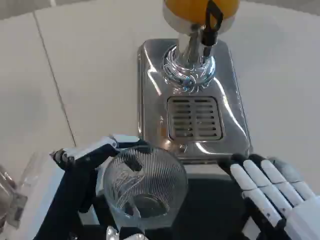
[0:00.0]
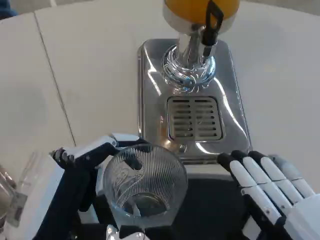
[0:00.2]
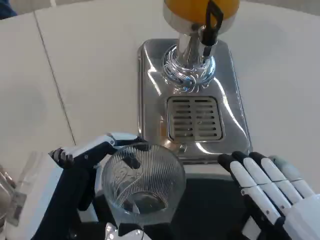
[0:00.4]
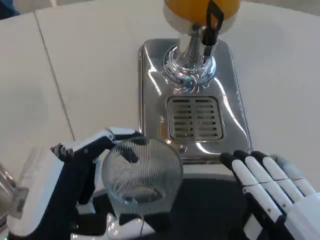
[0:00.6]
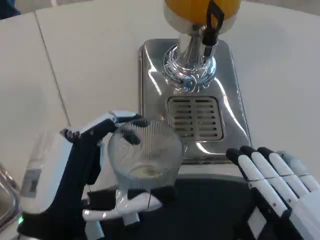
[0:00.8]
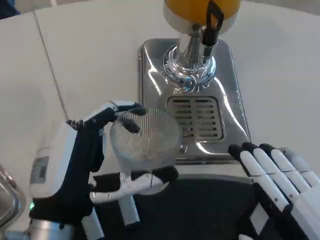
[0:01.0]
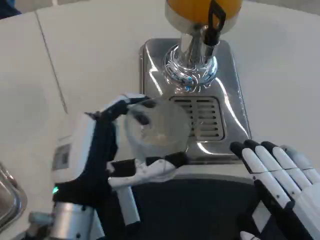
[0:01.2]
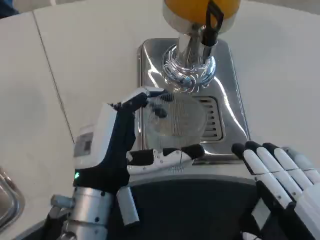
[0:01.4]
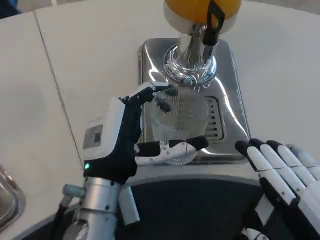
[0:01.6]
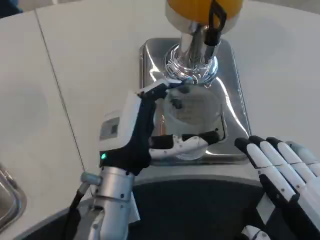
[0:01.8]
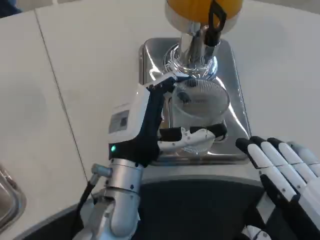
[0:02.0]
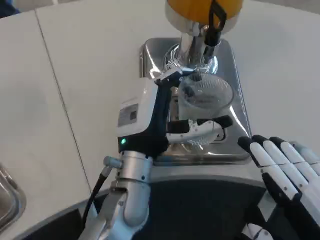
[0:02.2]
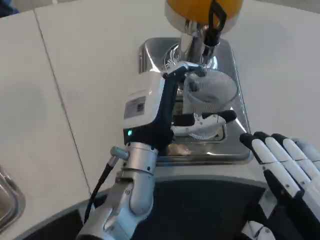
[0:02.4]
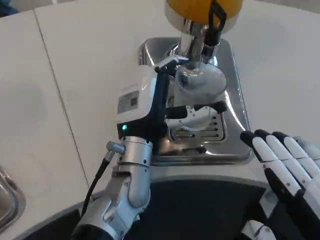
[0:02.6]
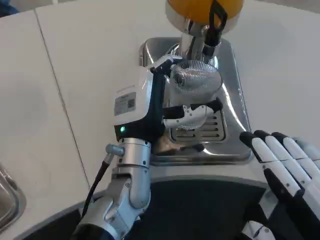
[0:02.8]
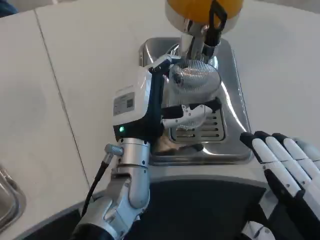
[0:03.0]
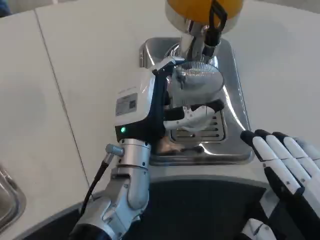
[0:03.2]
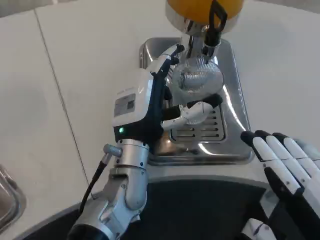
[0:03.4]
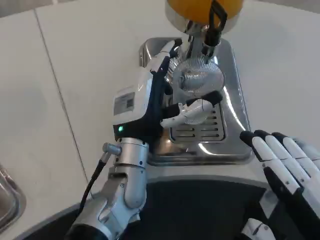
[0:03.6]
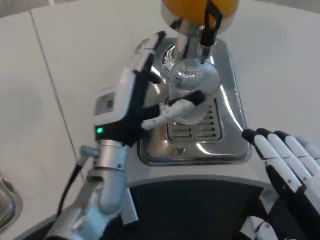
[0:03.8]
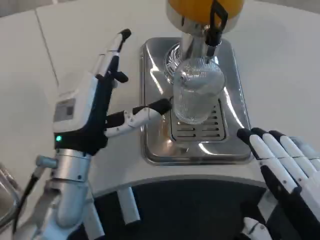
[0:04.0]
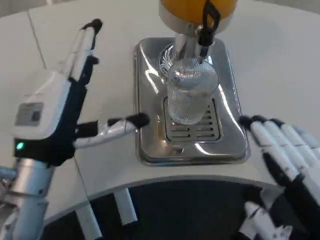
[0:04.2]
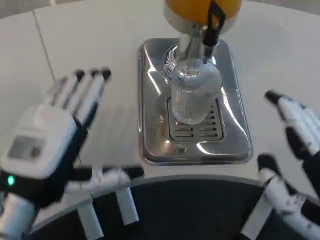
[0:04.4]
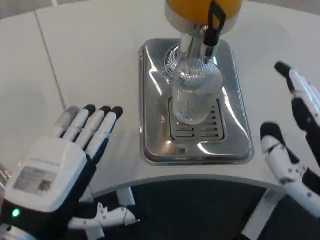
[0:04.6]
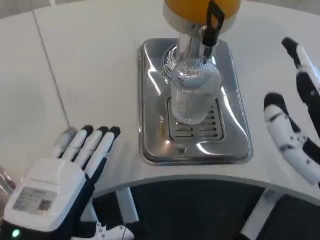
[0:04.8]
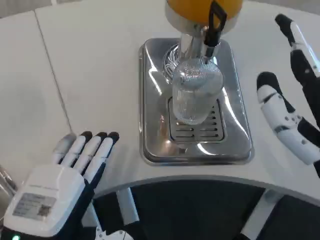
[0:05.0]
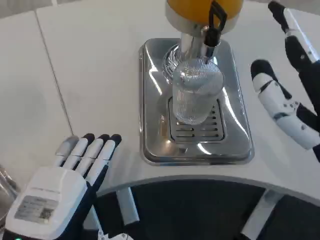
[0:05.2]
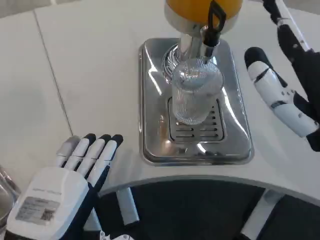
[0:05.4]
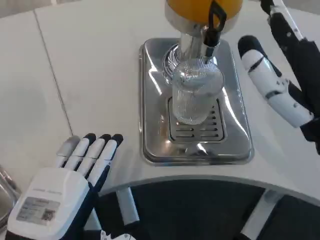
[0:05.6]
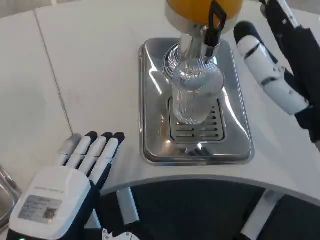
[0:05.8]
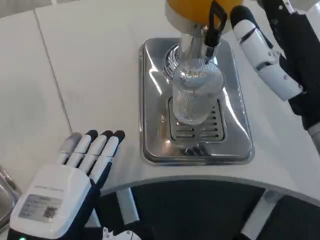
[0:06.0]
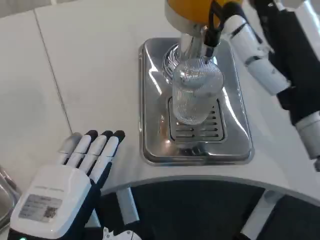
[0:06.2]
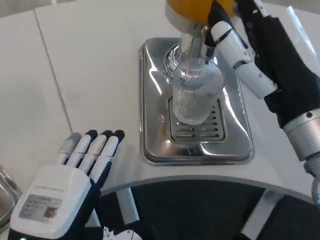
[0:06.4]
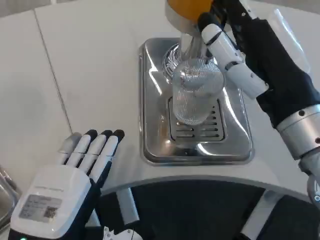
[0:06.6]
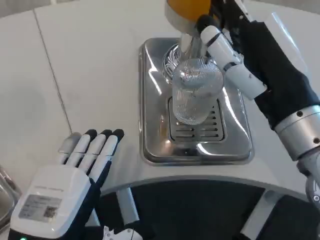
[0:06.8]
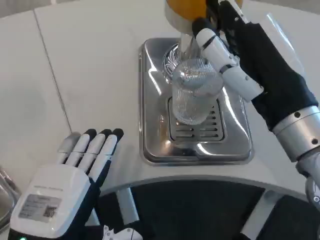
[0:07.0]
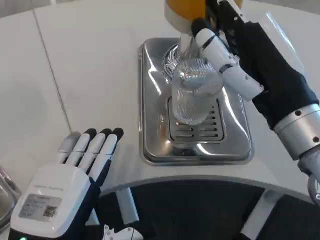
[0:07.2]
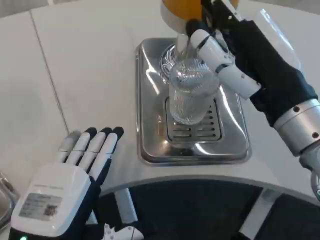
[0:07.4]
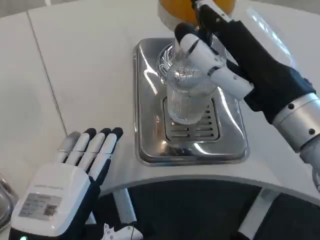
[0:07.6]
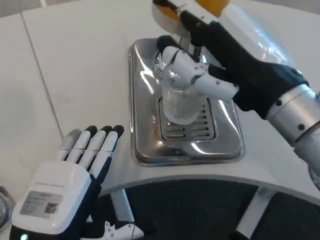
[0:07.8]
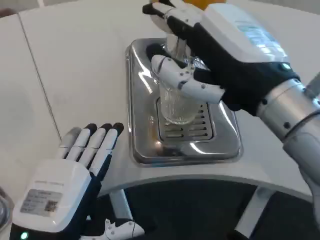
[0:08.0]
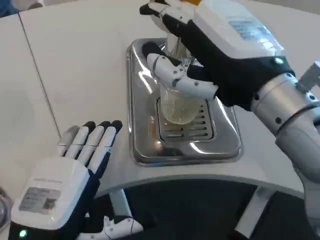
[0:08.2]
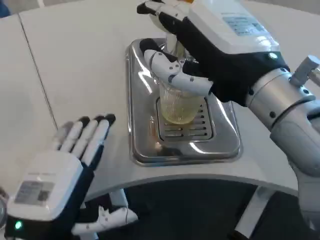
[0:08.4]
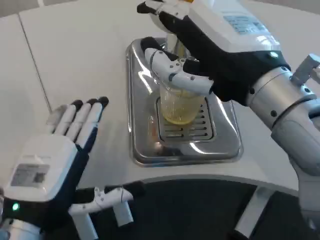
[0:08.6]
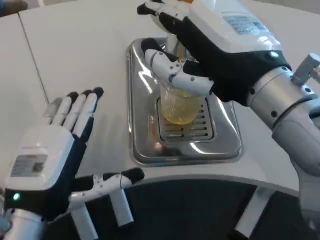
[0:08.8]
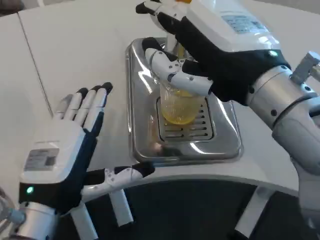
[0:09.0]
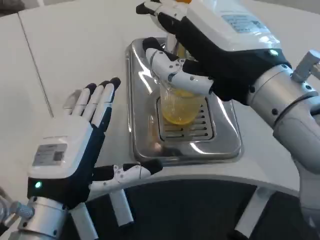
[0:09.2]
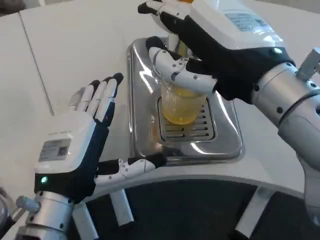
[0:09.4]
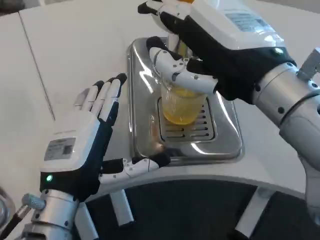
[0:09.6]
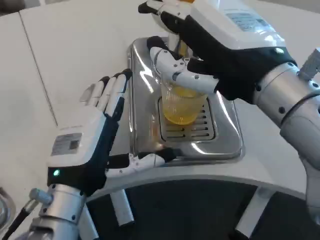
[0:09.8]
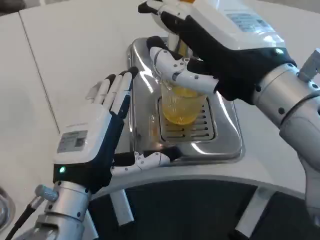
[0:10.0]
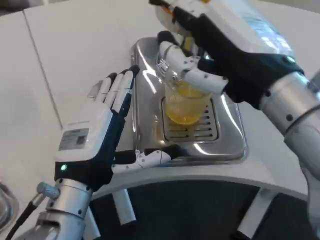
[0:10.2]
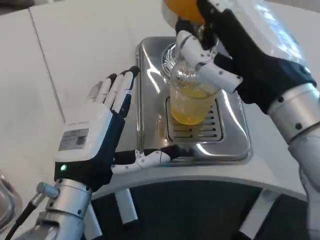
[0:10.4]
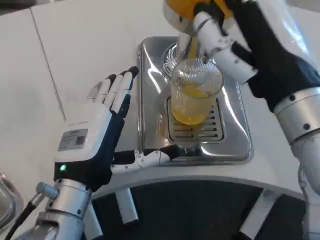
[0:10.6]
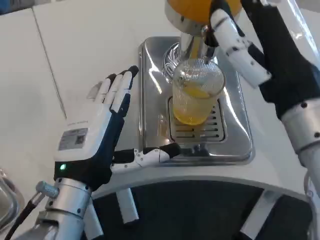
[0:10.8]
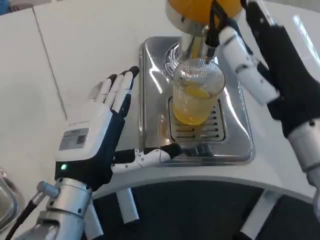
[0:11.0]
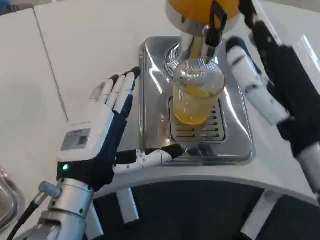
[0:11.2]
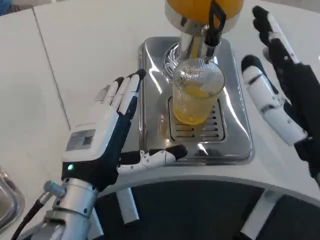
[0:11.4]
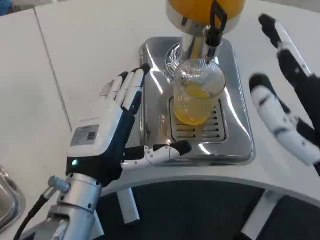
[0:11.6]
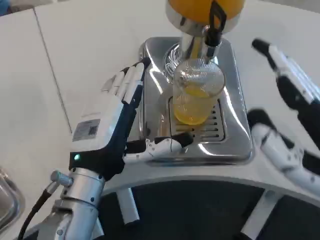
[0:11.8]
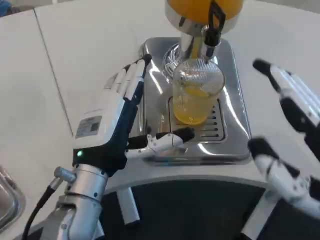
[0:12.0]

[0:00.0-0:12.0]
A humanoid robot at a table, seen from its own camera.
Task of the whole recording: Grasp the cup under the faucet to collect the drink, then remove the cup.
0:00.0 to 0:01.6: The left hand goes some 15 cm forward and to the right.
0:01.6 to 0:03.0: The left hand shifts approximately 5 cm forward.
0:03.0 to 0:04.4: The left hand is displaced to the left and backward by about 20 cm.
0:04.4 to 0:06.0: The left hand is displaced backward by roughly 5 cm. The right hand moves forward and upward, some 15 cm.
0:07.6 to 0:09.0: The left hand travels forward by roughly 5 cm.
0:10.4 to 0:12.0: The right hand shifts approximately 15 cm backward, to the right and downward.

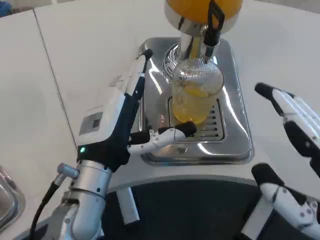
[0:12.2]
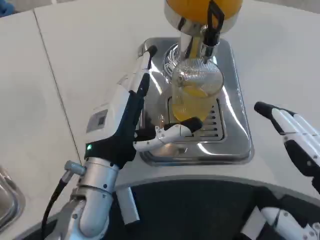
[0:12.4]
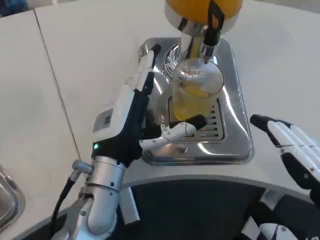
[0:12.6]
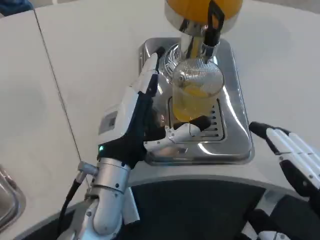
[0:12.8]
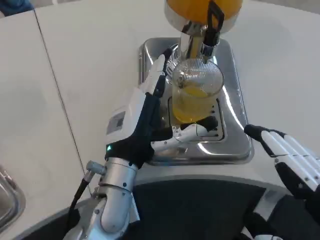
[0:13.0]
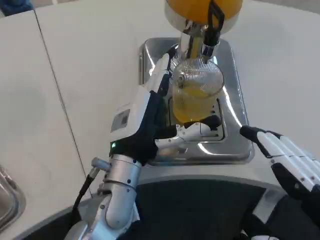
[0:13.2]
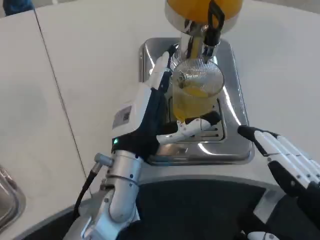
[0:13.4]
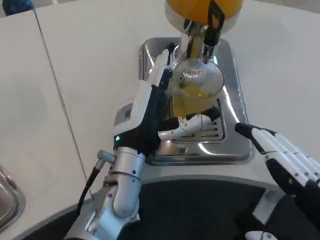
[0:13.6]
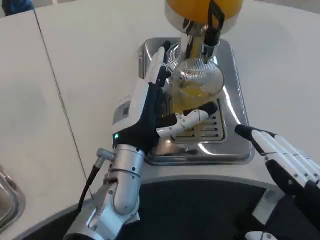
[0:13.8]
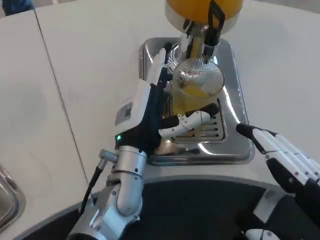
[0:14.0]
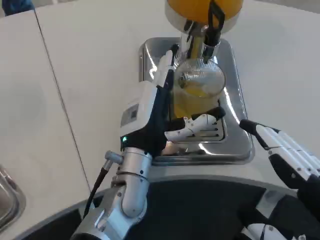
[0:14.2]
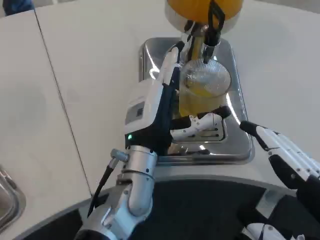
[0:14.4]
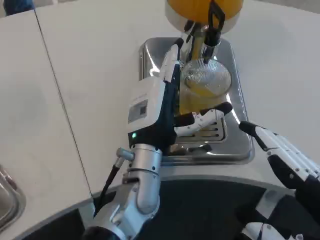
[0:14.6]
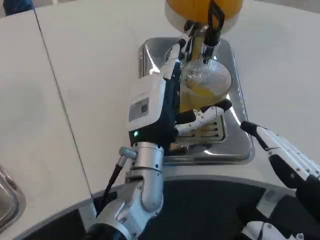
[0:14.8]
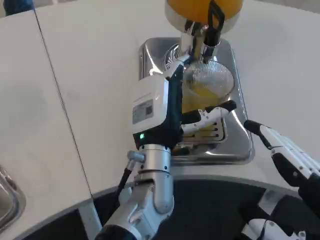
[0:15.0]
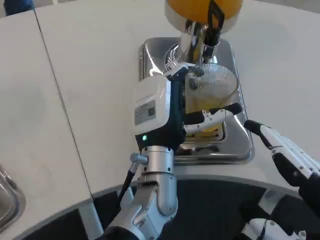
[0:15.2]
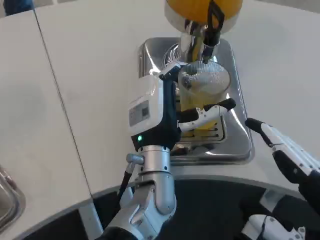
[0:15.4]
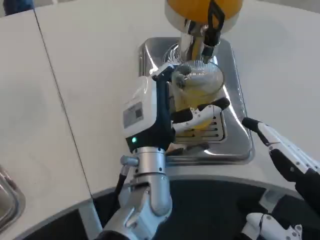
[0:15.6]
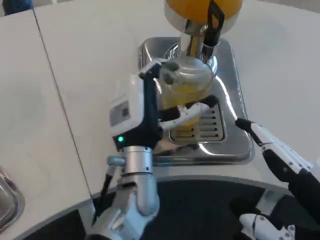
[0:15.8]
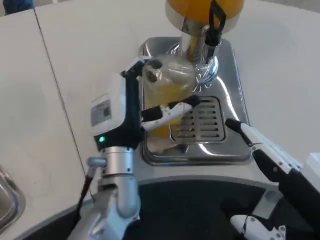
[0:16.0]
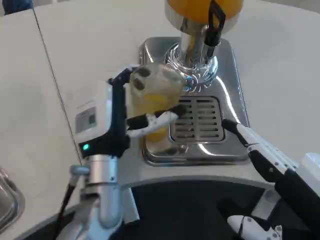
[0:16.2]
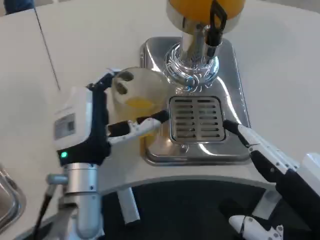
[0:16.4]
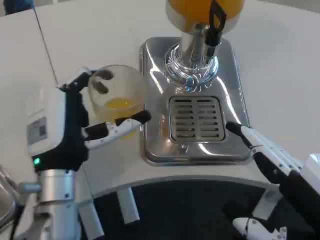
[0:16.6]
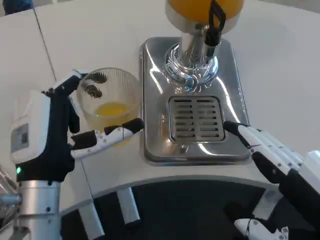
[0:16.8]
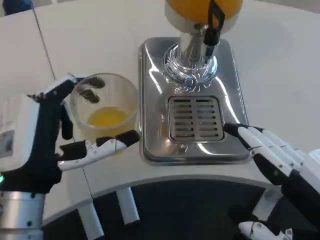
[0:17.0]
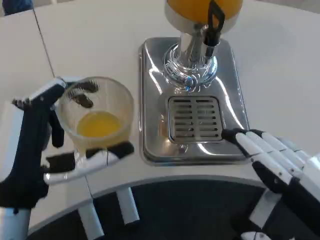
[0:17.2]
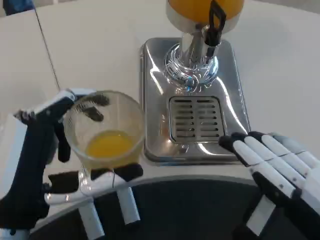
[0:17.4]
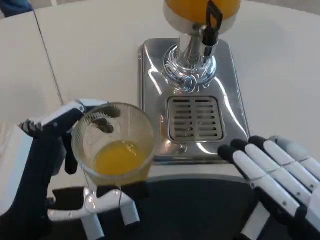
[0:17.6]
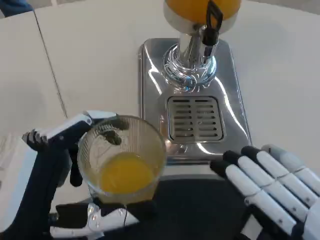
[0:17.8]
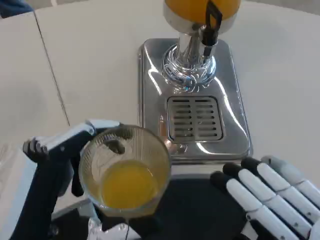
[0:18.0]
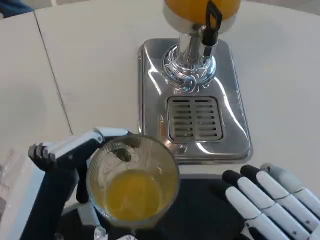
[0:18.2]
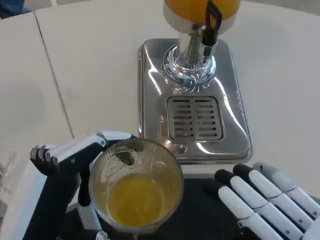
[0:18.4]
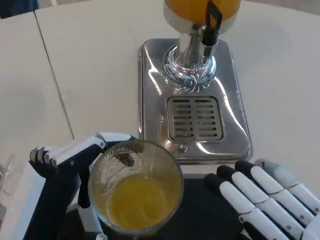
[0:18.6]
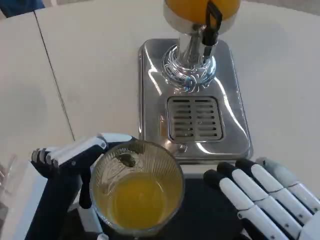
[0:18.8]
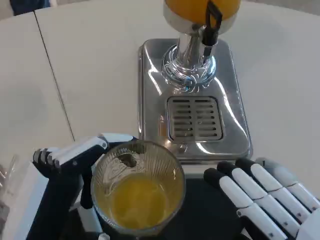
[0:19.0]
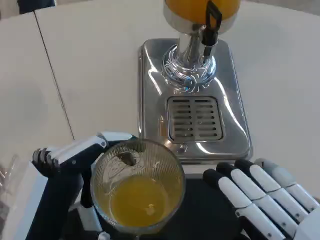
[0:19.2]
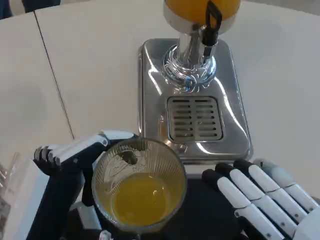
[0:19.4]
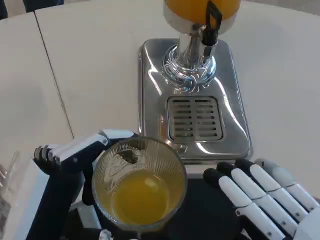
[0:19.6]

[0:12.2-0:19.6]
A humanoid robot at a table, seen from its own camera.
Task of the whole recording: Grasp the cup under the faucet to collect the drink, then remove the cup.
0:12.2 to 0:13.6: The left hand changes place by roughly 5 cm.
0:13.6 to 0:15.2: The left hand shifts some 5 cm to the right.
0:15.2 to 0:16.6: The left hand heads to the left and backward, covering about 15 cm.
0:16.6 to 0:18.2: The right hand shifts about 5 cm backward. The left hand goes roughly 15 cm backward.
0:18.2 to 0:19.6: Both hands stay put.

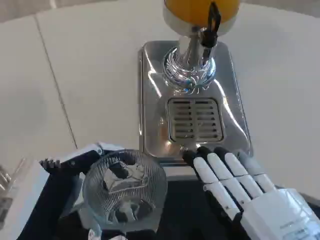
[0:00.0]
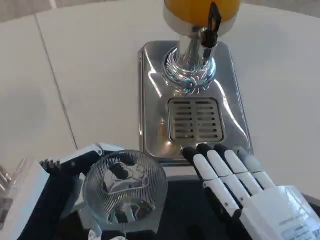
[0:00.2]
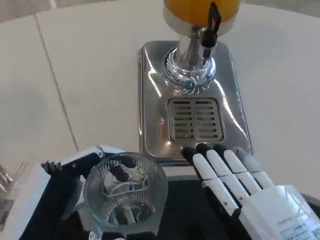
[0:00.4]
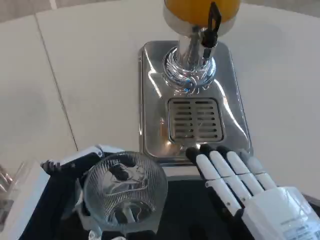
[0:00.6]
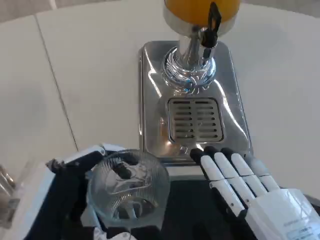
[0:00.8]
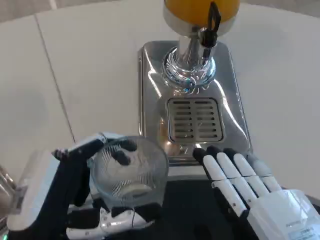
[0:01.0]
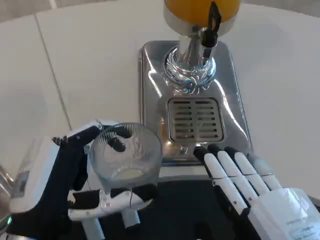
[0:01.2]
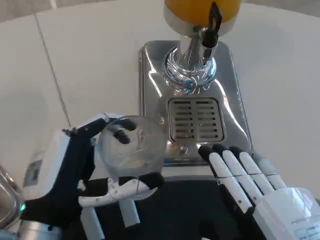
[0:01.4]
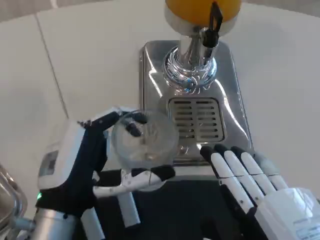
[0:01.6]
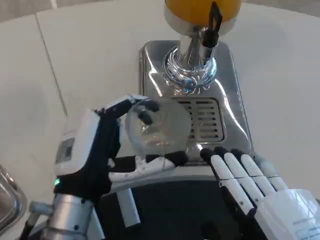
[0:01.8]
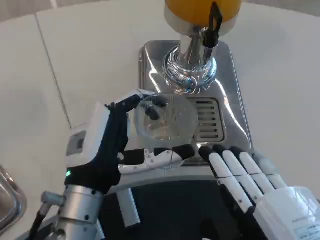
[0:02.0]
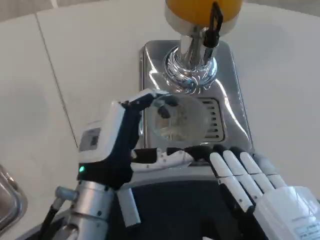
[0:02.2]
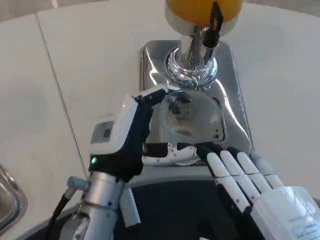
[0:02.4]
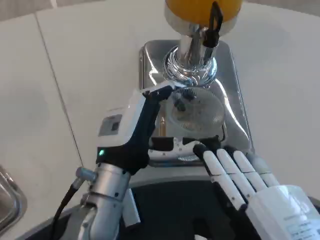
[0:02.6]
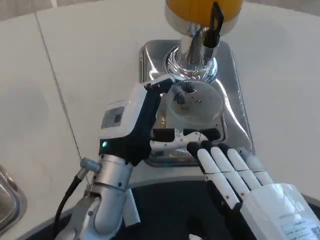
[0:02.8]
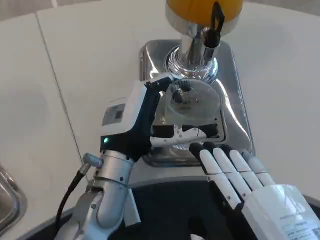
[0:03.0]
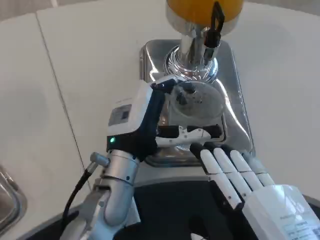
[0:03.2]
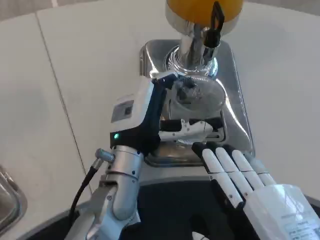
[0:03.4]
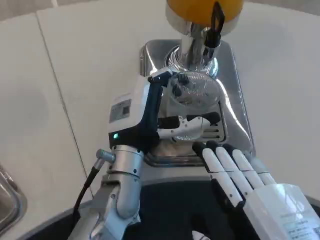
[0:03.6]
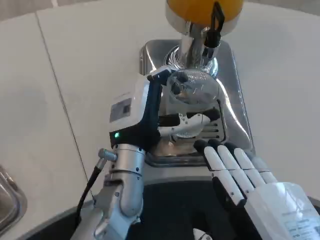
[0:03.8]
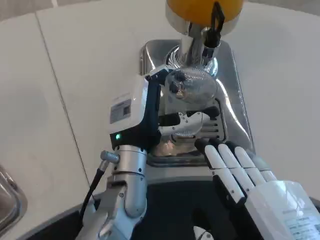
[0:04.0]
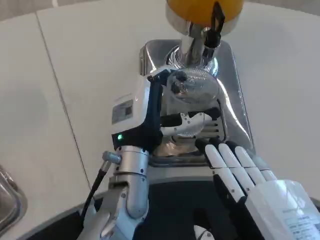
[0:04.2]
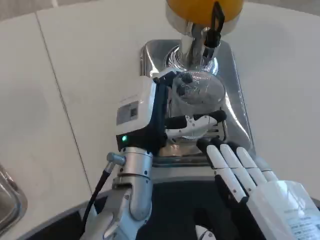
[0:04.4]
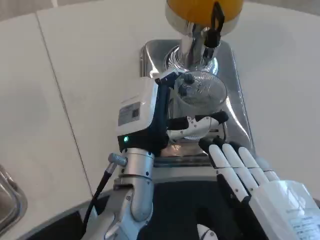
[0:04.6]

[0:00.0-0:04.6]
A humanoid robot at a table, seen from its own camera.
Task of the whole recording: Grasp the cup under the faucet to collect the drink, then remove the cup.
0:00.0 to 0:01.6: The left hand shifts about 10 cm forward.
0:01.6 to 0:03.0: The left hand is displaced forward and to the right by some 10 cm.
0:03.0 to 0:04.6: The hands make only small movements.
